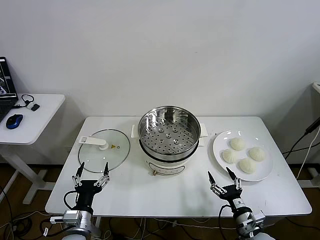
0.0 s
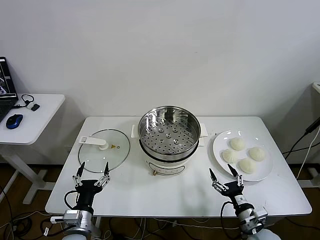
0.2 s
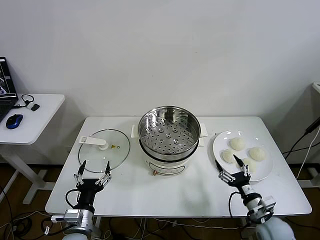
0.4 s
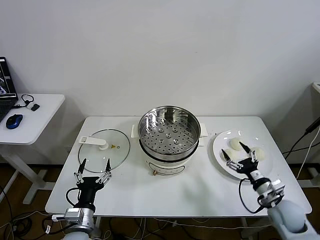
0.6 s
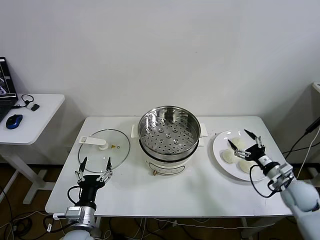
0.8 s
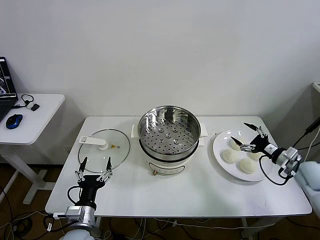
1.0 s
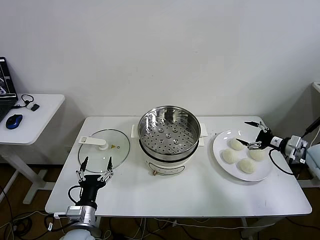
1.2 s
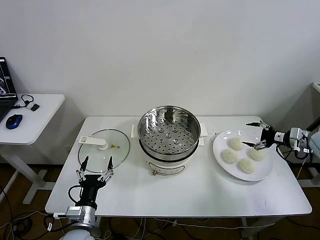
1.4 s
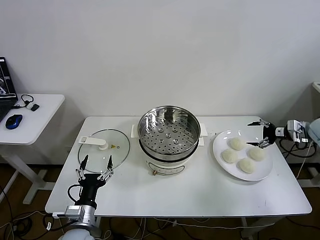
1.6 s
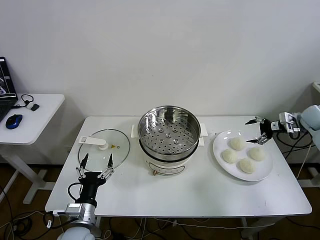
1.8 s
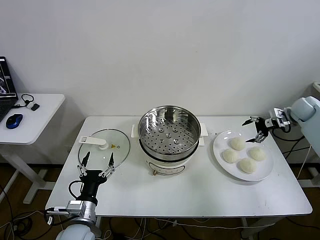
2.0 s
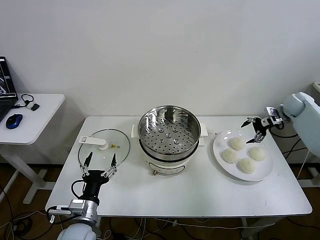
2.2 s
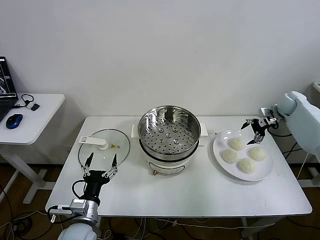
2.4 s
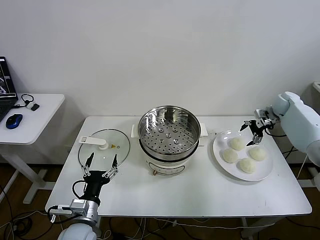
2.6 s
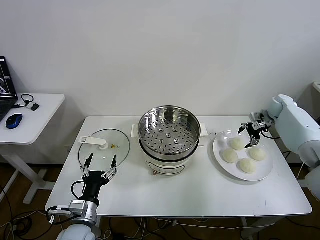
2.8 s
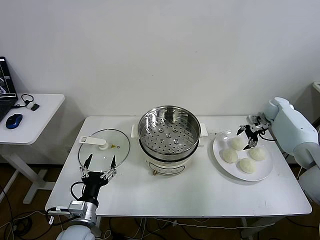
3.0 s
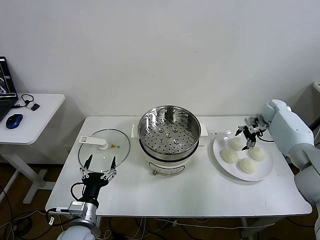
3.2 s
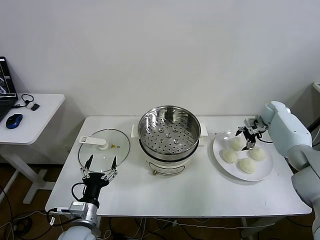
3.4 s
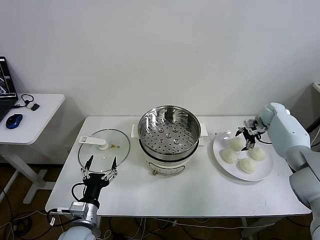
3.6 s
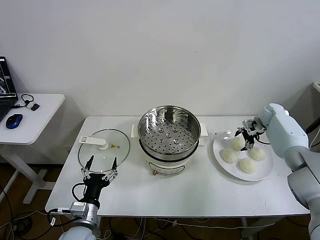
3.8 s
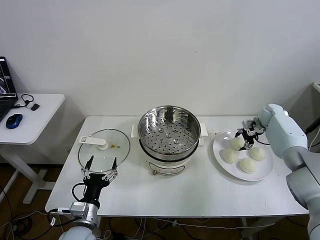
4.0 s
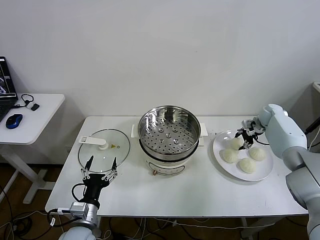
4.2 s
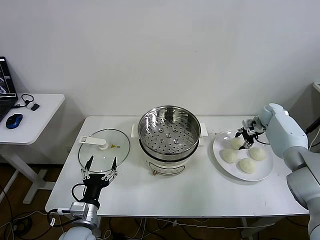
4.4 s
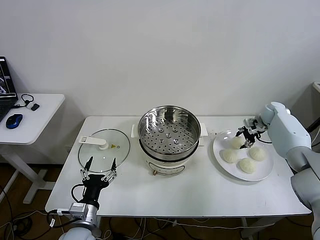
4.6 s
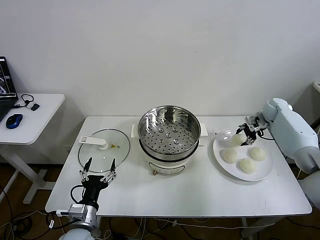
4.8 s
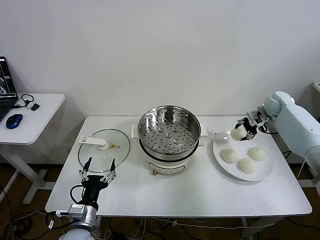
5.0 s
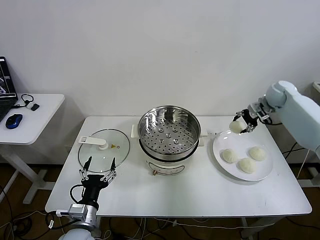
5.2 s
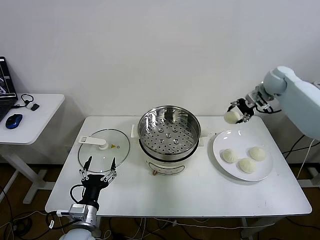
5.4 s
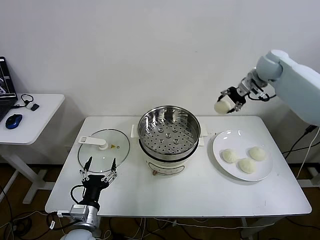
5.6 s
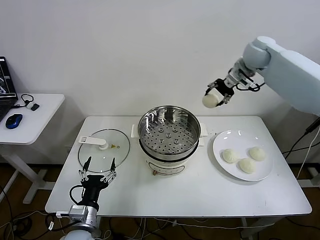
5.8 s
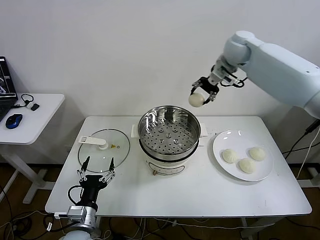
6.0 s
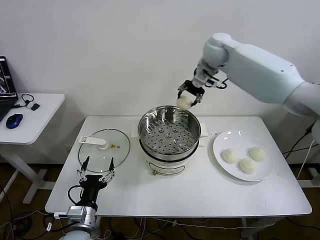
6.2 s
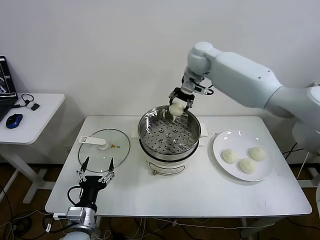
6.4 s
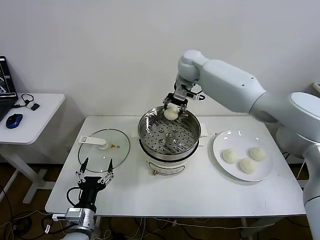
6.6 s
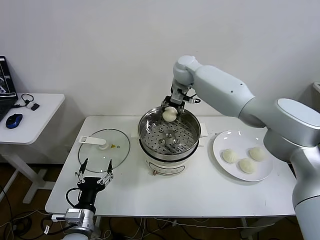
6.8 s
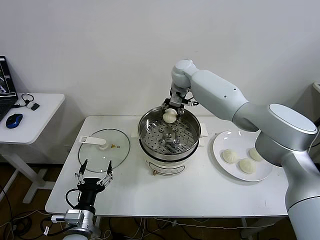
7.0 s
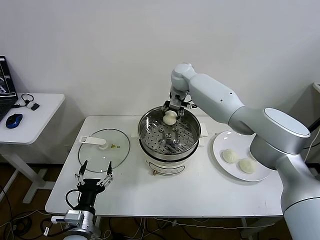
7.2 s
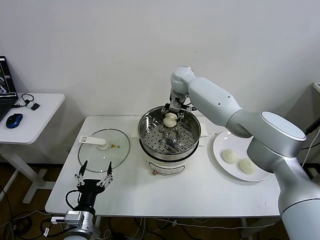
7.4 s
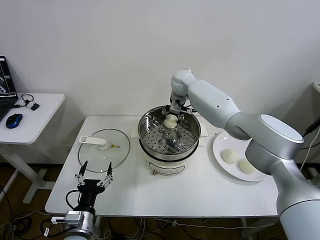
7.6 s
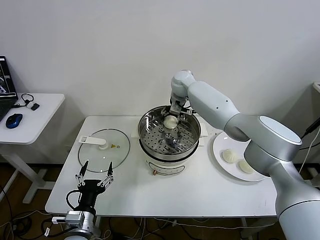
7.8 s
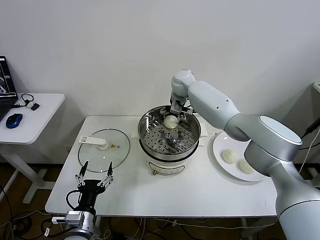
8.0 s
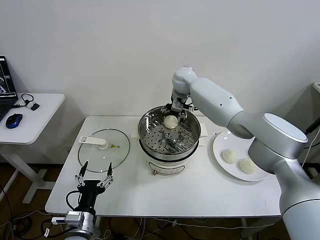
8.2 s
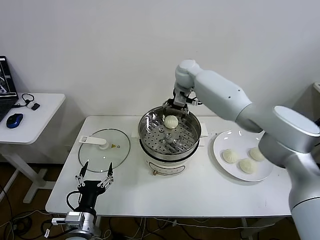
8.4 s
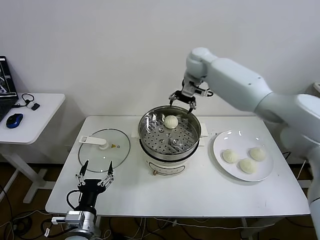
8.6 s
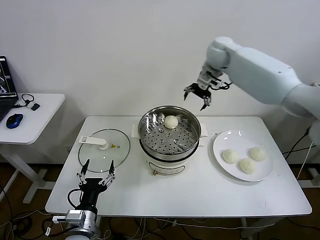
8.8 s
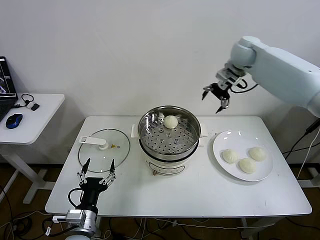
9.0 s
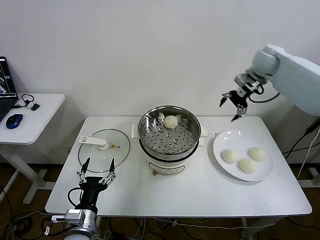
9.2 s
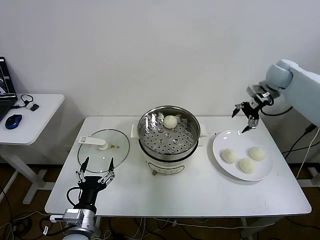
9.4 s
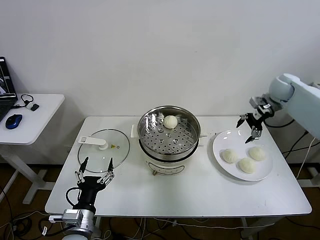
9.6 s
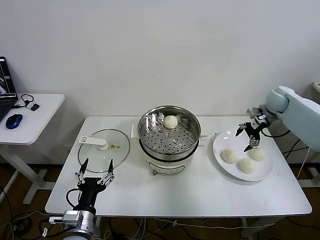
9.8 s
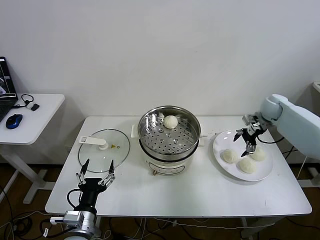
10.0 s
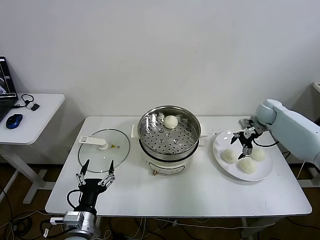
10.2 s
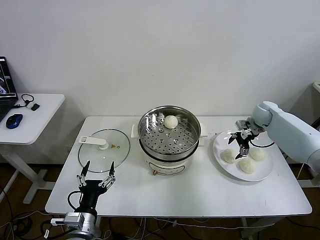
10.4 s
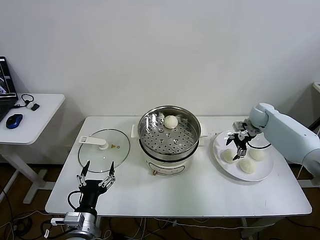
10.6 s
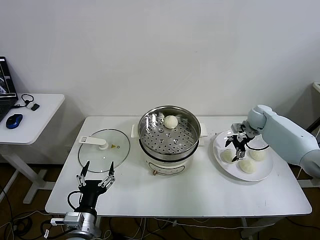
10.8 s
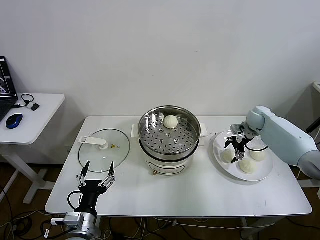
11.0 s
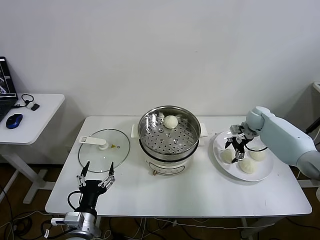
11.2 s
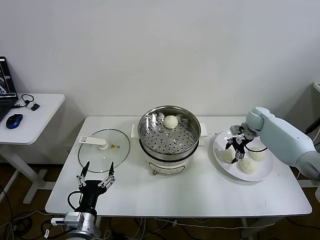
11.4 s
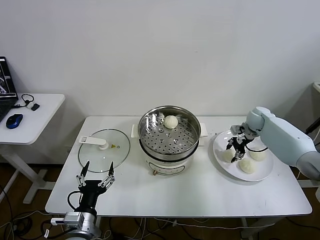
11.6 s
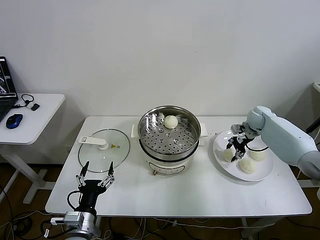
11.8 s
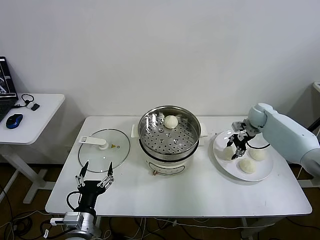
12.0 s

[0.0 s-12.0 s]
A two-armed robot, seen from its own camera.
Step, 0.0 to 4.4 s: Grasp the baozi in the plate with right gripper.
Step, 4.6 to 8.2 s: Place the baozi on the steamer with right gripper.
Step, 8.4 to 11.8 s: Grasp the baozi in the plate with right gripper.
1.6 to 3.0 s: The right gripper moves forward and to the left, approximately 15 cm.
3.0 to 4.4 s: The right gripper closes.
4.4 to 6.0 s: The right gripper moves upward and to the left, about 40 cm.
6.0 to 7.6 s: The right gripper travels downward and to the left by some 20 cm.
7.6 to 9.0 s: The right gripper moves to the right and upward, roughly 25 cm, and opens its fingers.
9.0 to 10.4 s: The right gripper heads downward and to the right, covering roughly 25 cm.
10.4 to 12.0 s: The right gripper closes up.

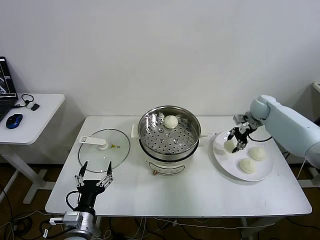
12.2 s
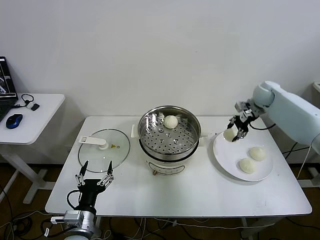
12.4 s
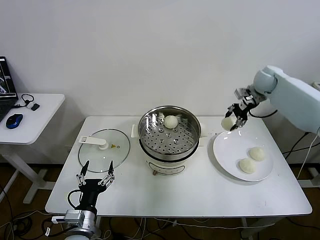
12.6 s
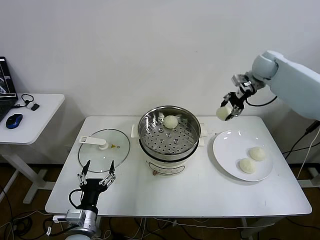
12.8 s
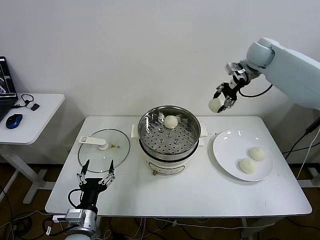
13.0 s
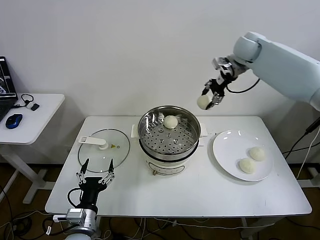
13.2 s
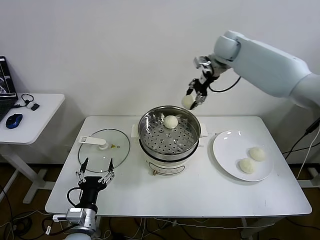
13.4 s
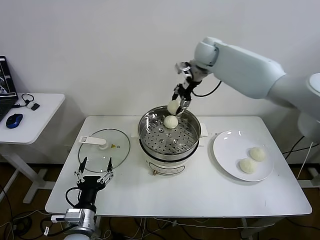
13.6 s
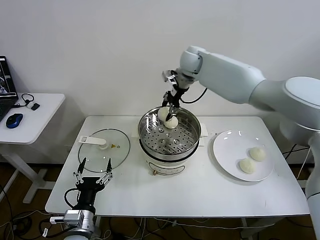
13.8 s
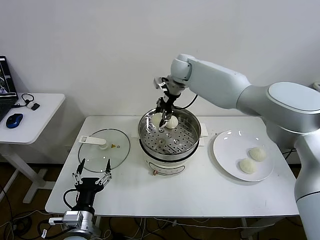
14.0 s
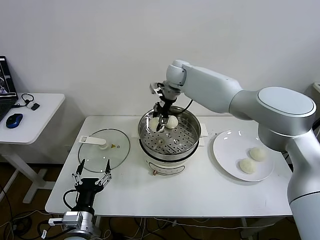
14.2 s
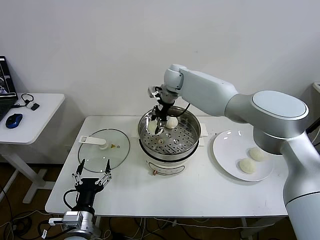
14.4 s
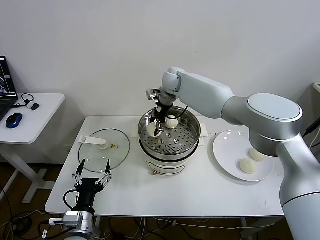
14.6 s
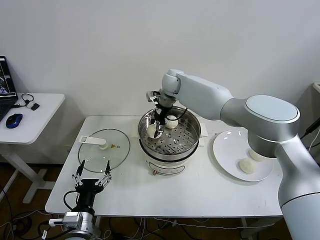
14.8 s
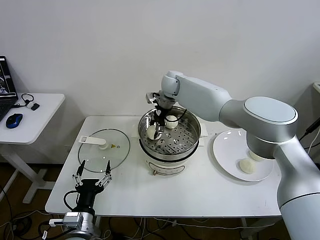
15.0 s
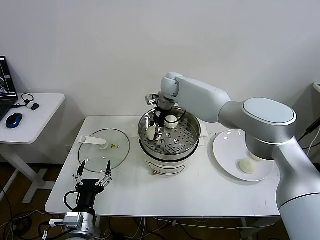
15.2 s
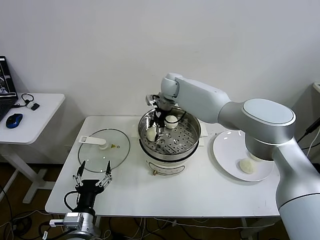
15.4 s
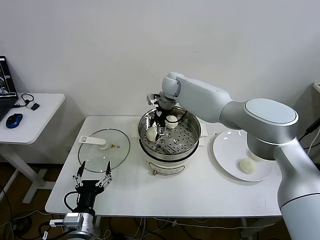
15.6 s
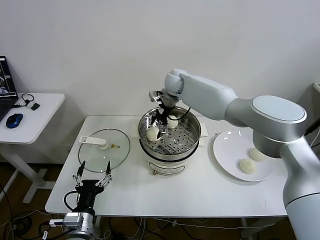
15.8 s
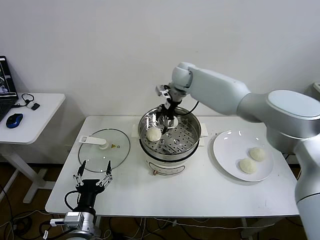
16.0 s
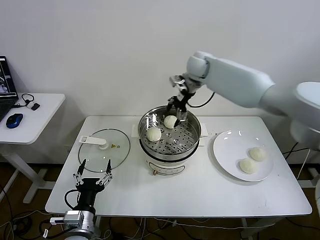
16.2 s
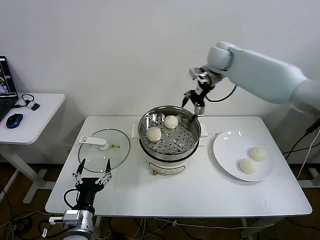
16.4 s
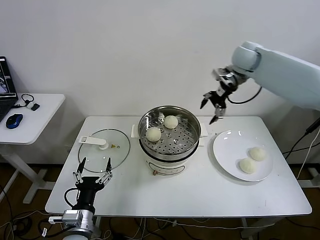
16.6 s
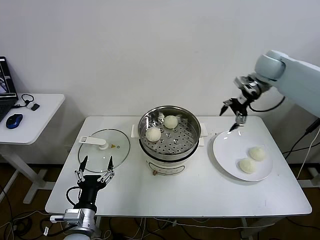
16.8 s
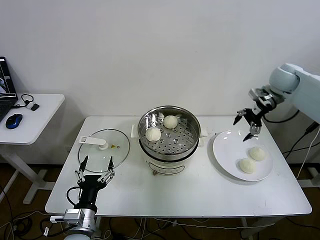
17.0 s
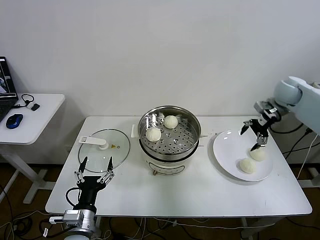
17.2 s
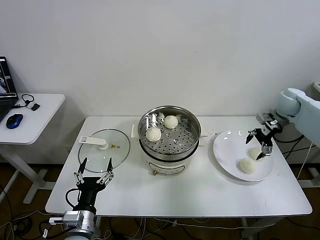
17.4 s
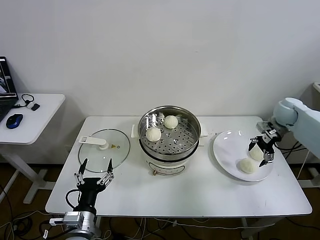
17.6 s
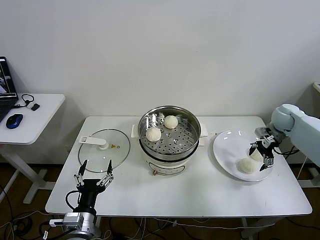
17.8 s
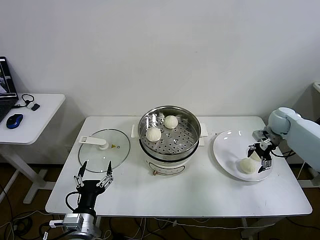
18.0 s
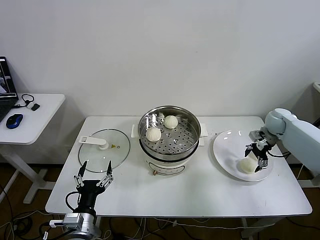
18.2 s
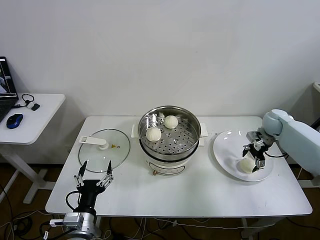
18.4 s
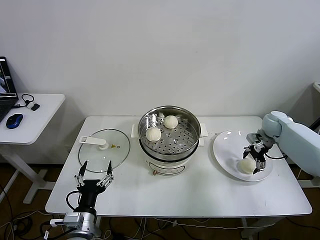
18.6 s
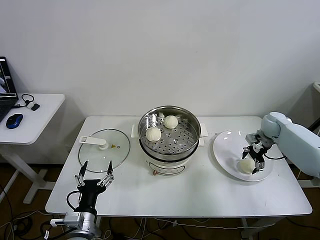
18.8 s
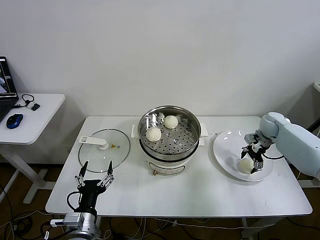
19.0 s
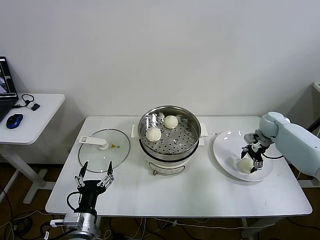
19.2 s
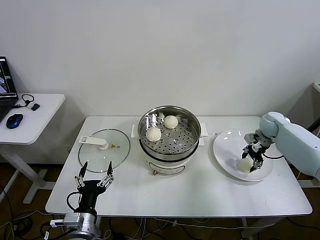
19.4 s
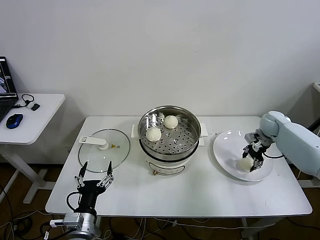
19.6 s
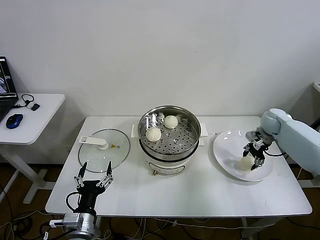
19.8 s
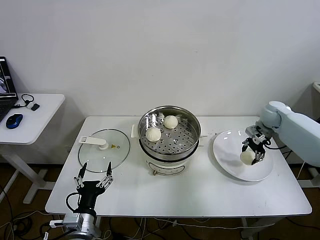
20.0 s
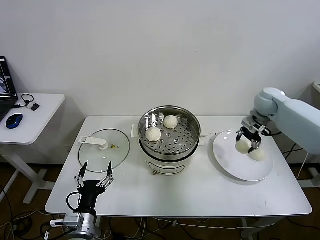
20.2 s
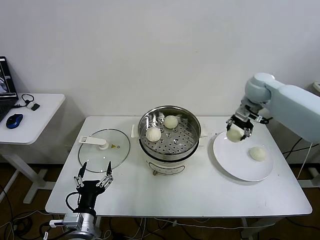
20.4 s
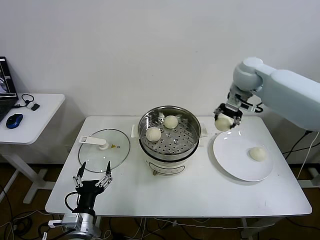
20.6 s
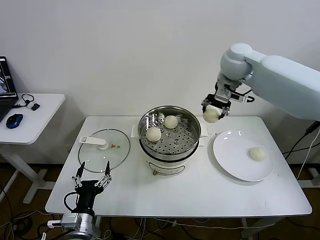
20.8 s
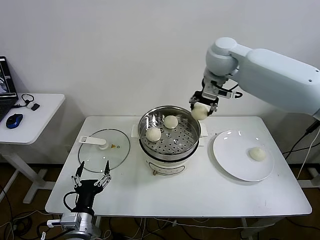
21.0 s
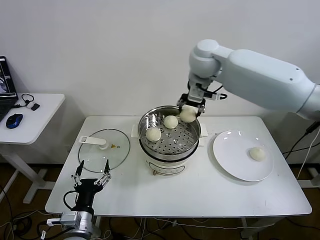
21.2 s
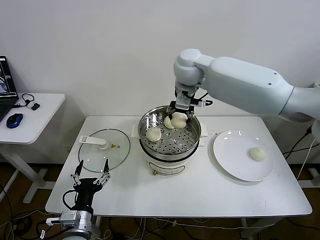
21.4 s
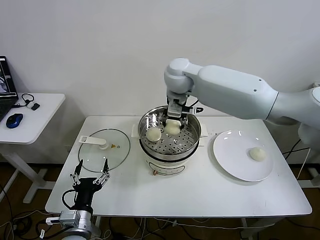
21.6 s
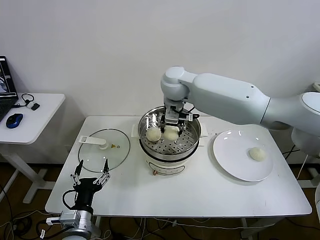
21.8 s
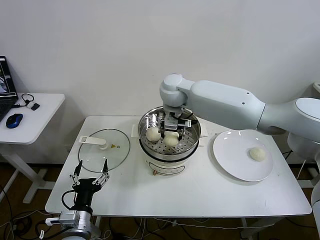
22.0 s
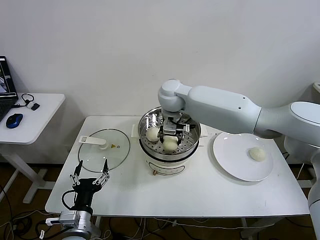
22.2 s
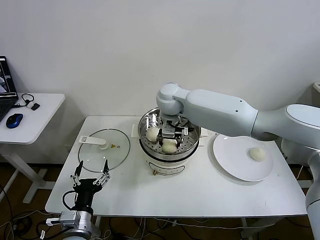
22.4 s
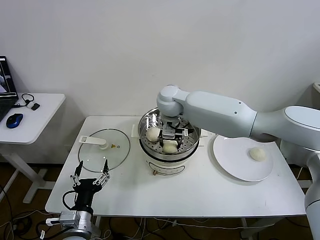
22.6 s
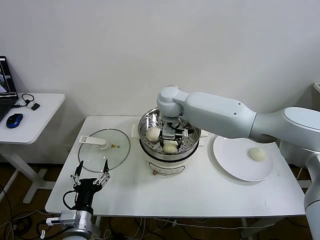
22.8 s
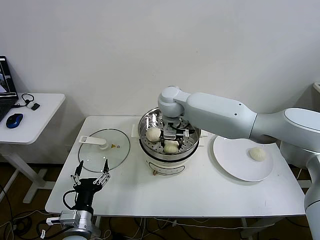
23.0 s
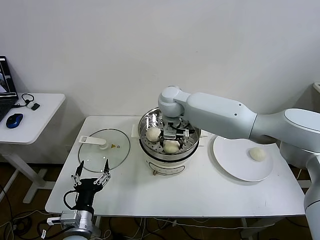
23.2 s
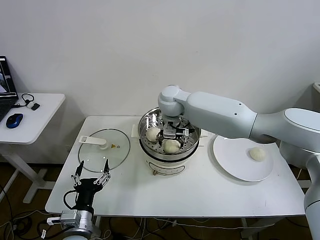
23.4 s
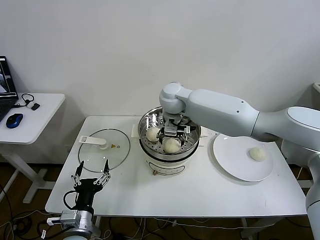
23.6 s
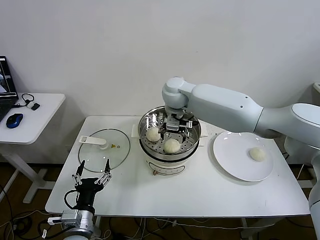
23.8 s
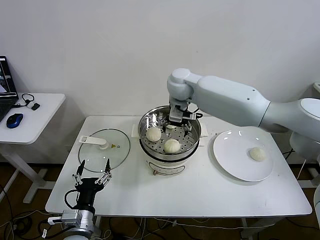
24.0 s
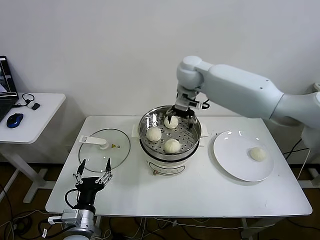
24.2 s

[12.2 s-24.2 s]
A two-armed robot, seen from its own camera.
Step, 12.2 to 15.8 s: Place the baozi on the steamer with right gripper.
Step, 16.0 to 19.4 s: Grasp the baozi in the plate with right gripper.
Step, 19.6 to 23.6 s: Place the baozi on the steamer with right gripper.
12.2 to 13.8 s: The right gripper heads to the left and upward, covering some 35 cm.
13.8 to 15.2 s: The right gripper shifts approximately 10 cm downward and to the left.
15.2 to 16.6 s: The right gripper shifts about 30 cm to the right and upward, and opens its fingers.
16.6 to 18.2 s: The right gripper heads downward and to the right, covering approximately 30 cm.
18.2 to 19.8 s: The right gripper closes.
19.8 to 21.2 s: The right gripper is displaced to the left and upward by about 40 cm.
21.2 to 22.6 s: The right gripper travels downward and to the left by about 15 cm.
22.6 to 24.2 s: The right gripper travels upward and to the right by approximately 10 cm, and opens up.
